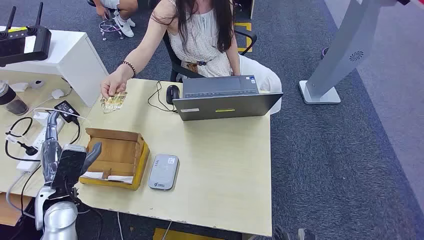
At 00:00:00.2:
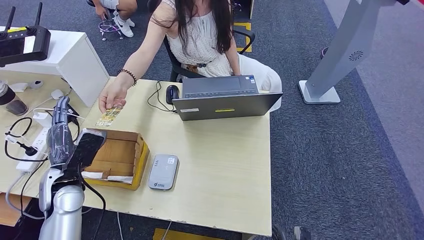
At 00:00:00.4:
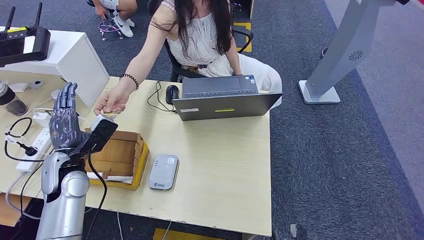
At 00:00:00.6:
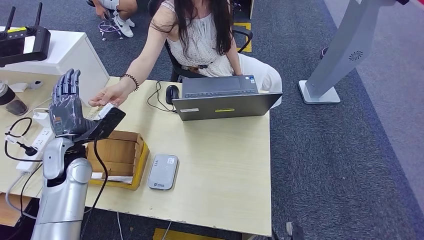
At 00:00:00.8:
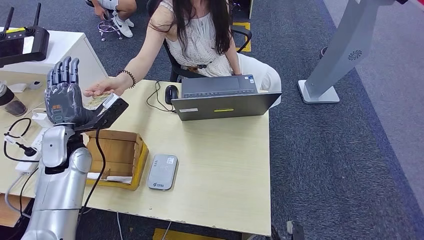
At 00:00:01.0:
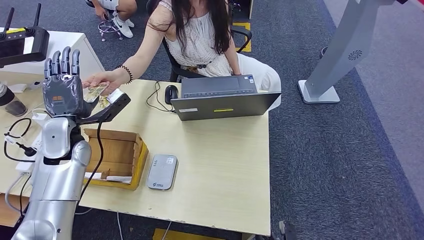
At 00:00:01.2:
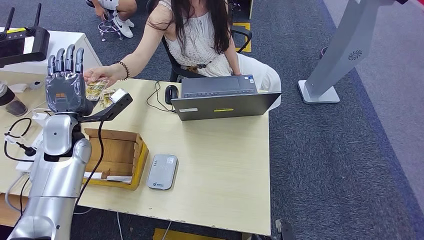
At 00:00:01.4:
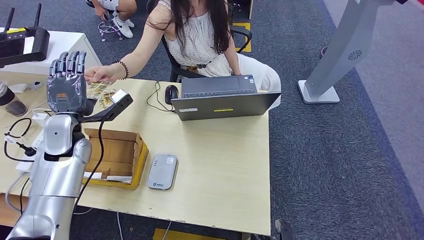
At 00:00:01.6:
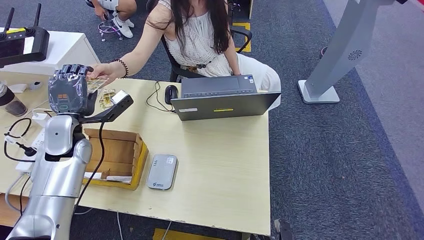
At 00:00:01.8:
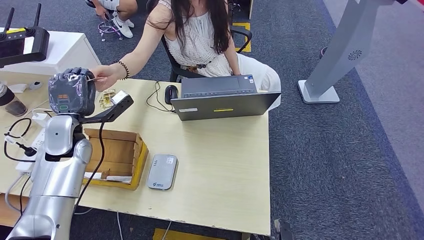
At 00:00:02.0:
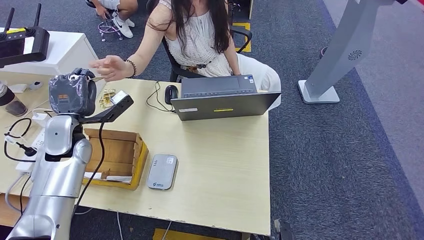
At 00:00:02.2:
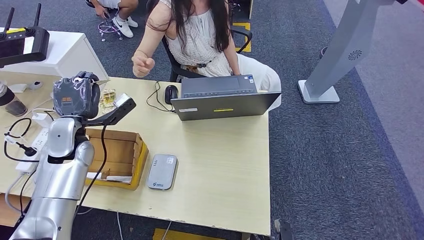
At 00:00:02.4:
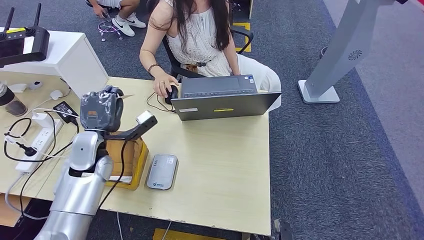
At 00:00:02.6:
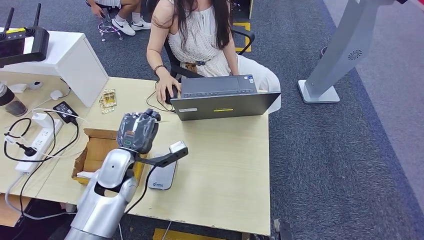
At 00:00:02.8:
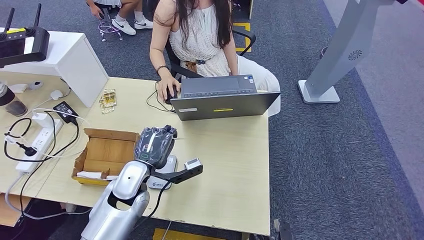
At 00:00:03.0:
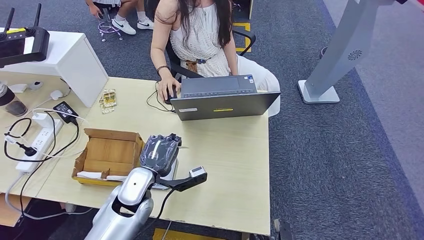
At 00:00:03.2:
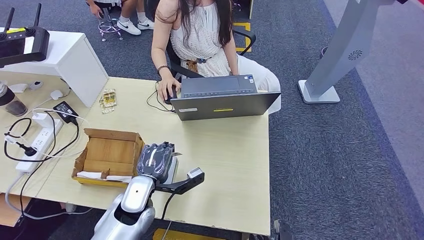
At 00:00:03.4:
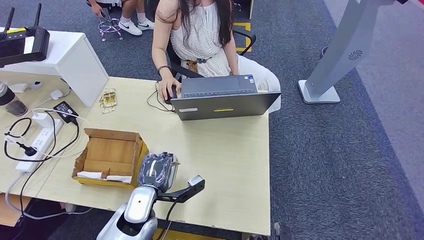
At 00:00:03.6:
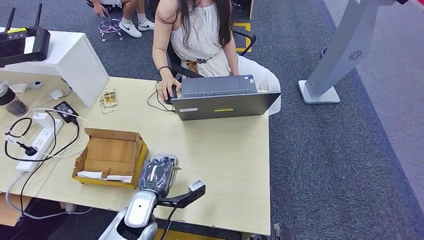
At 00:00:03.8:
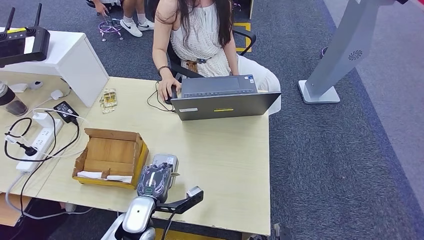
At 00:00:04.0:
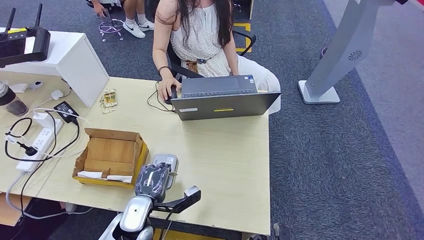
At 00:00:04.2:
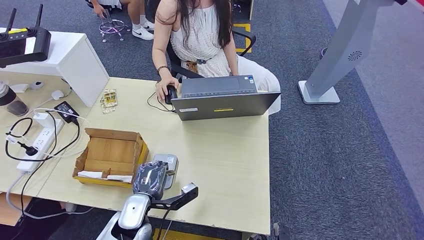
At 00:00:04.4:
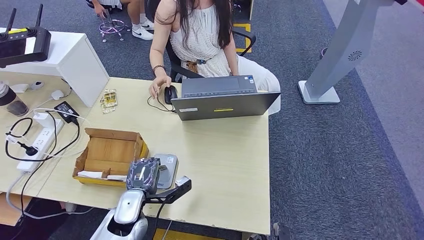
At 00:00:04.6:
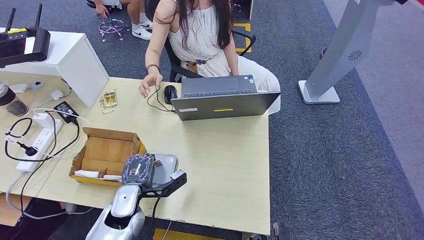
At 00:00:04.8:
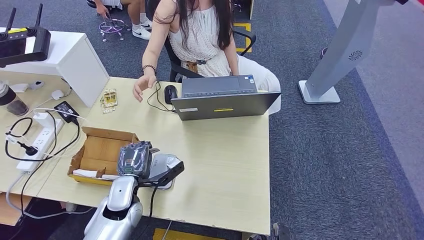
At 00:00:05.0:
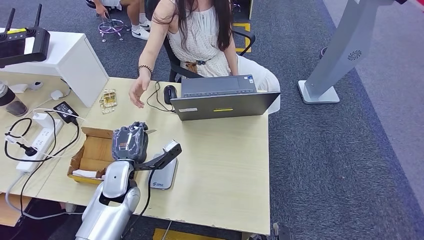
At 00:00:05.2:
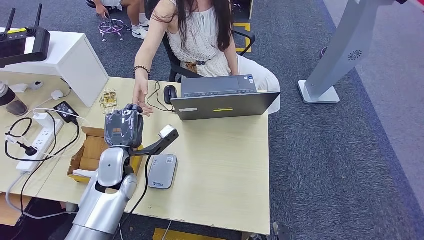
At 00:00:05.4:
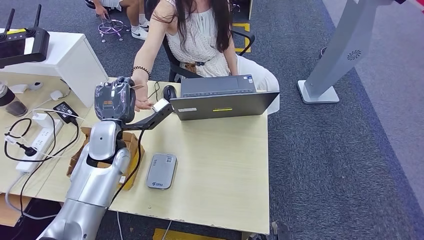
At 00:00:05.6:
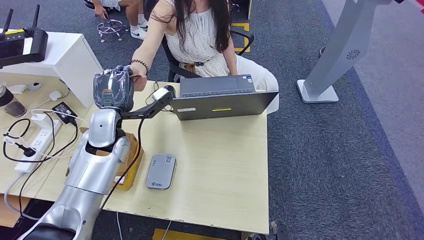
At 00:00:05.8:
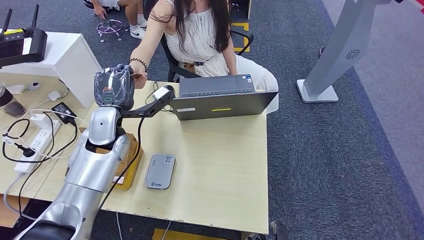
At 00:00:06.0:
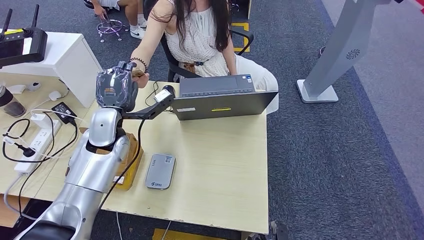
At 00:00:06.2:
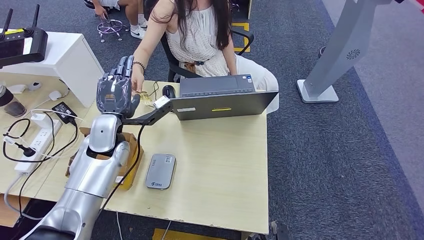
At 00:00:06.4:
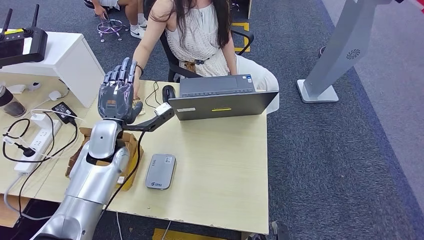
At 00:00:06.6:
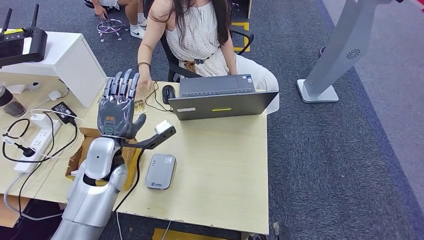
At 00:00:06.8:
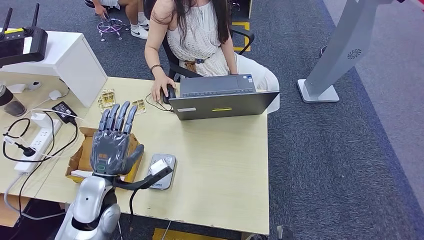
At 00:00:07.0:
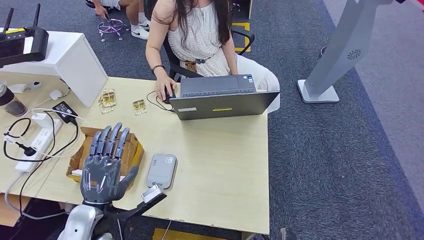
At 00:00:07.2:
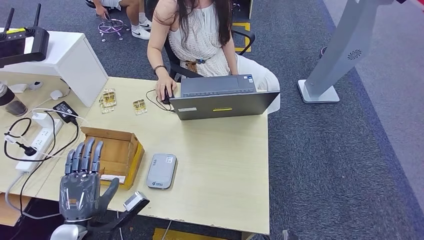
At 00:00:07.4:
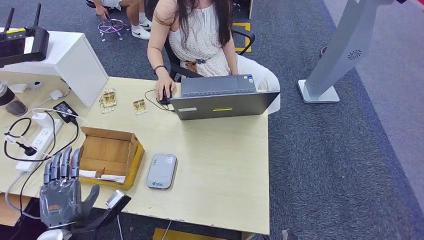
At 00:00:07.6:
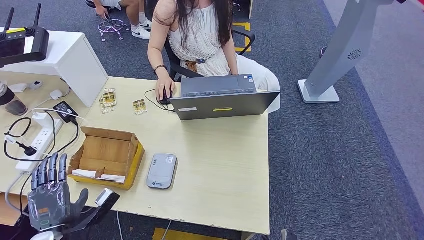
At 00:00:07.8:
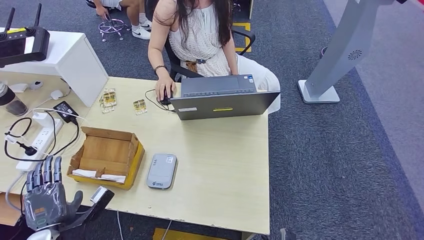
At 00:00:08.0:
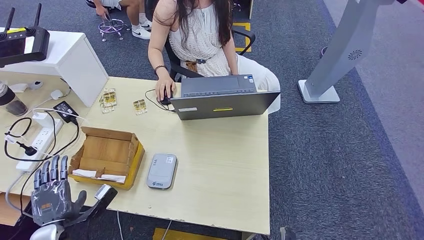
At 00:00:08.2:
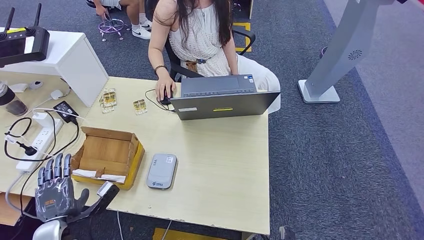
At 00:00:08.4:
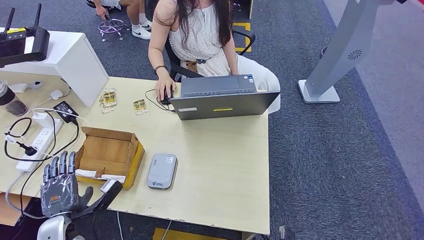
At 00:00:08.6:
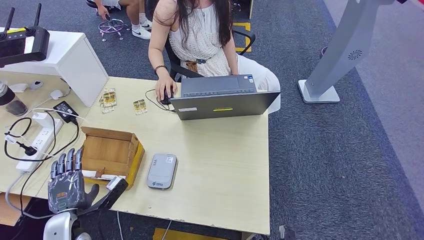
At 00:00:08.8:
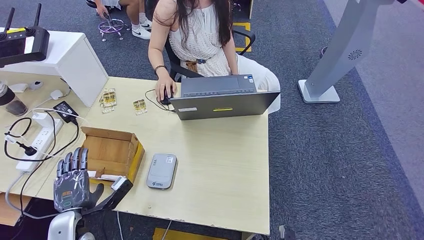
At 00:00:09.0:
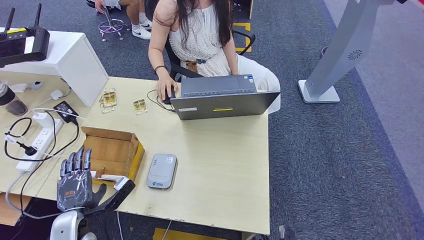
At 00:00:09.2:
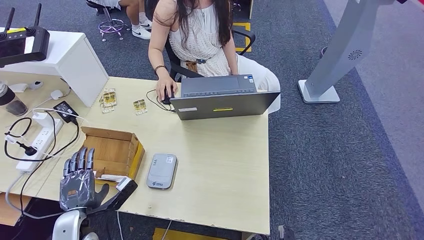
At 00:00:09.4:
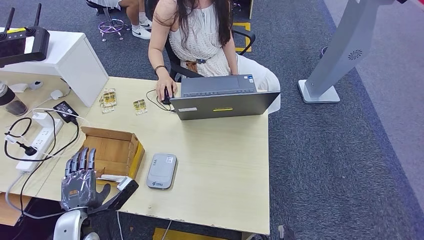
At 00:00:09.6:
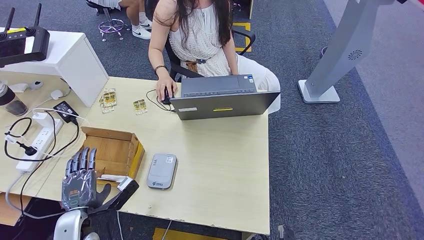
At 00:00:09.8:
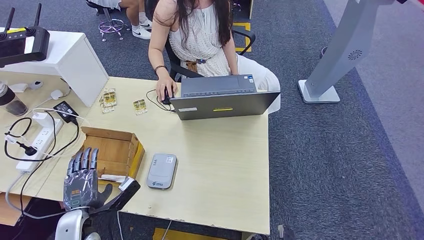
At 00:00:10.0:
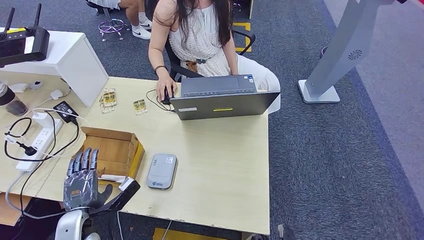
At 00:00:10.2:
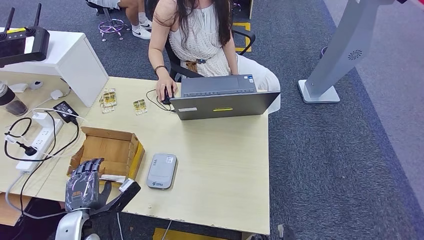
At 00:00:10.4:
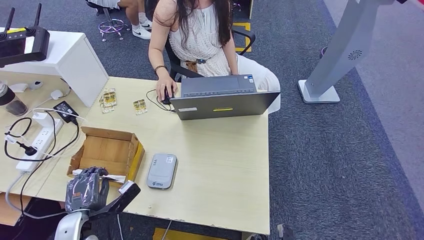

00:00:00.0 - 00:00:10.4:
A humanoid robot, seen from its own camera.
Step, 00:00:00.0 - 00:00:02.0: Take the ID card from the person's hand.
Step, 00:00:02.6 - 00:00:04.4: Place the ID card on the card reader.
Step, 00:00:05.2 - 00:00:06.2: Hand the ID card to the person.
00:00:03.0 - 00:00:04.4: The left hand travels downward by approximately 5 cm.
00:00:07.4 - 00:00:10.4: The hands move only a little.

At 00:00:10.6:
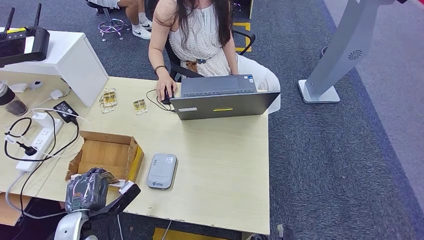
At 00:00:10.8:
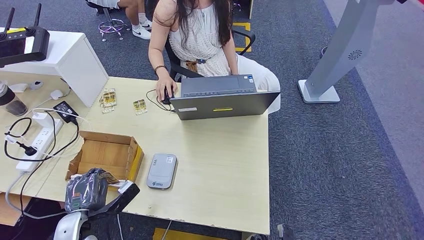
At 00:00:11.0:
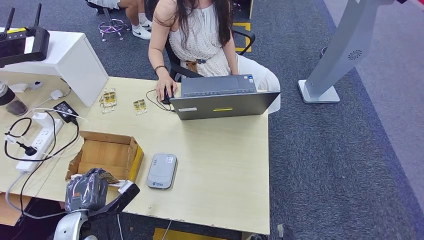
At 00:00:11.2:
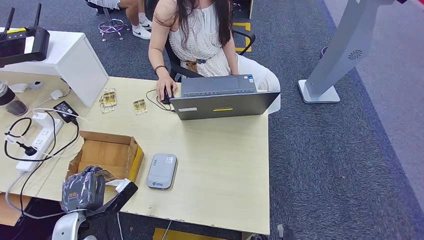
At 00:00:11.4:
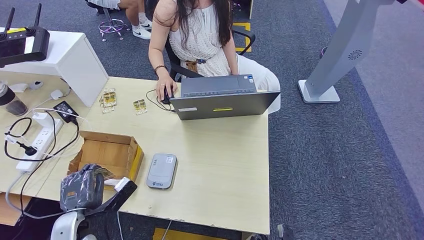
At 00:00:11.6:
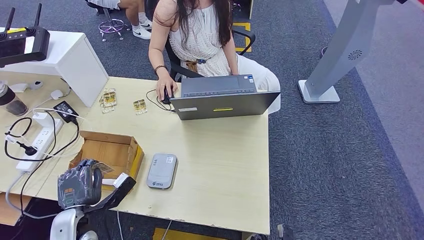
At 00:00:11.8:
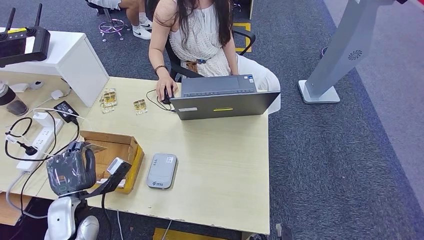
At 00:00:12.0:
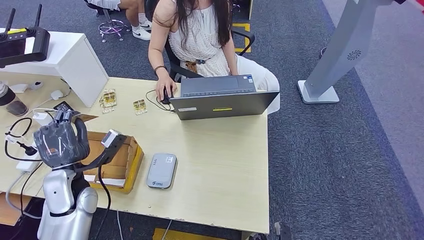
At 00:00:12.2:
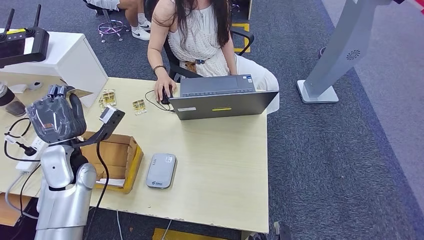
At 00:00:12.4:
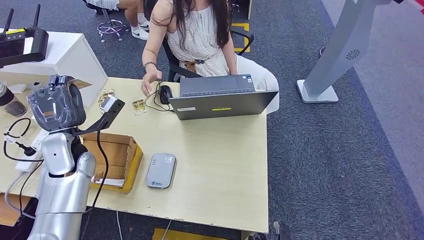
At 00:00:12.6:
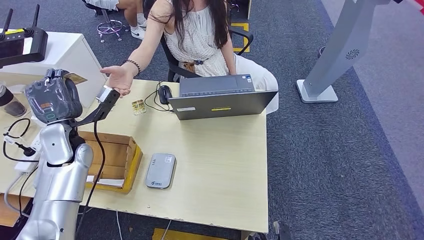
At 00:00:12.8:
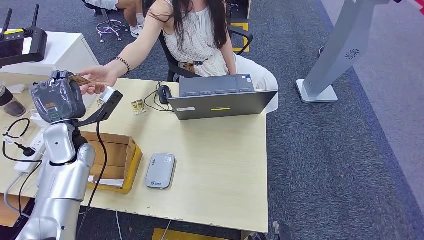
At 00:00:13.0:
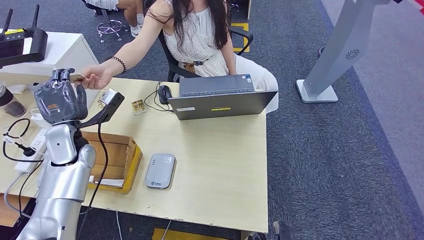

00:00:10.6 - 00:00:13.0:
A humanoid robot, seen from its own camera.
Step, 00:00:10.6 - 00:00:11.6: Pick up the room key from the key card box.
Step, 00:00:12.4 - 00:00:13.0: Hand the room key to the person.
00:00:10.6 - 00:00:11.8: The left hand ends up about 5 cm from where it was.
